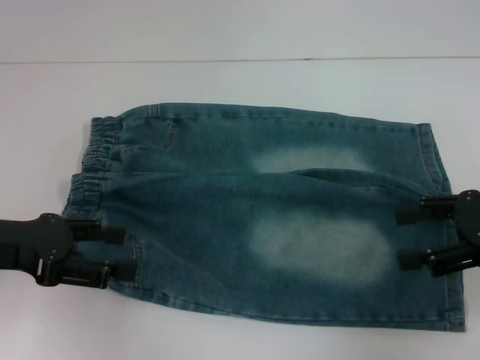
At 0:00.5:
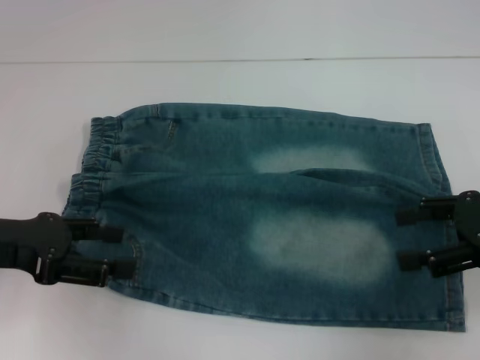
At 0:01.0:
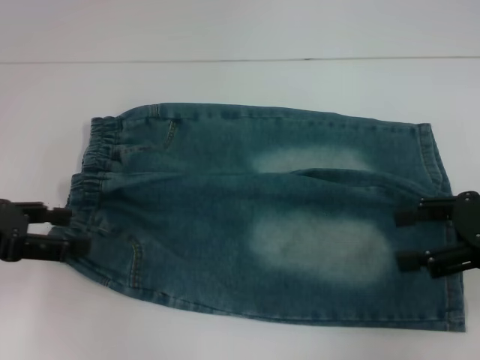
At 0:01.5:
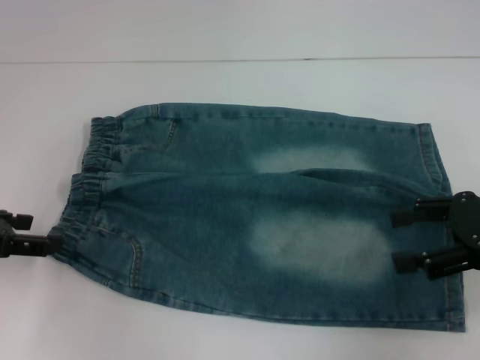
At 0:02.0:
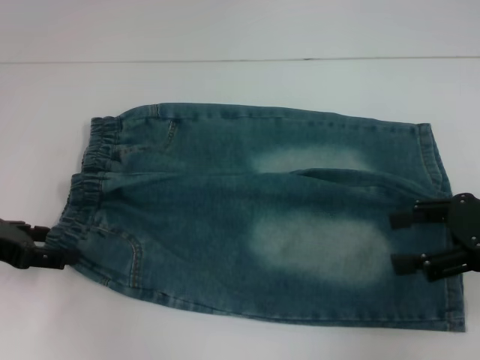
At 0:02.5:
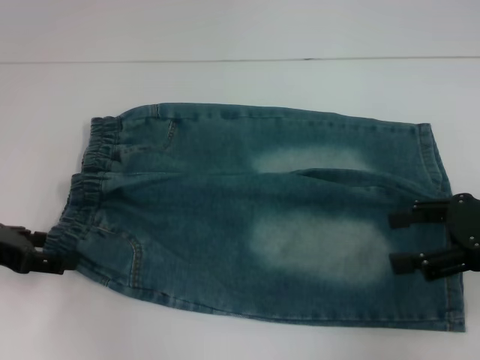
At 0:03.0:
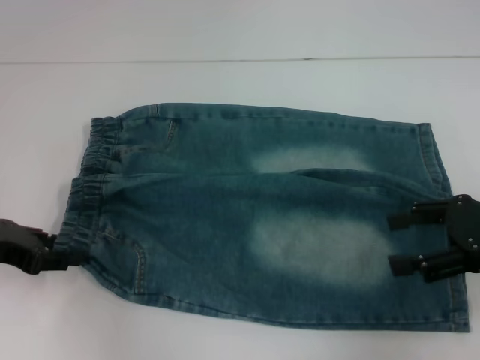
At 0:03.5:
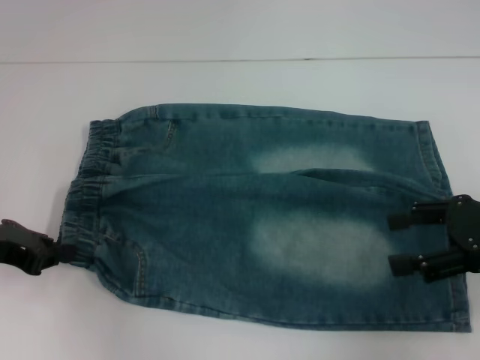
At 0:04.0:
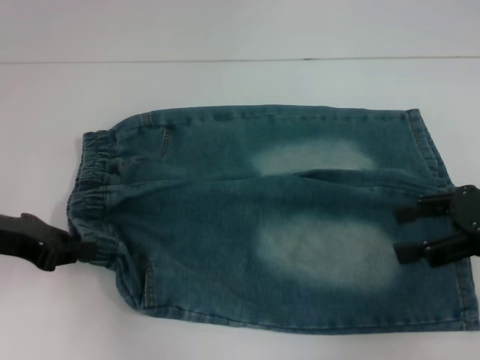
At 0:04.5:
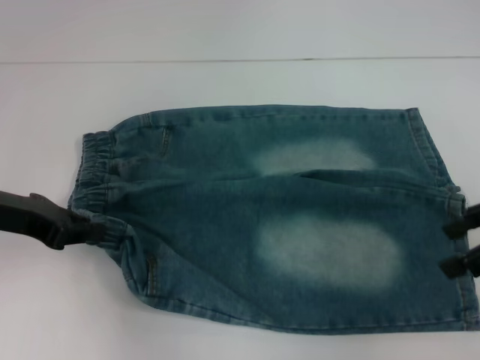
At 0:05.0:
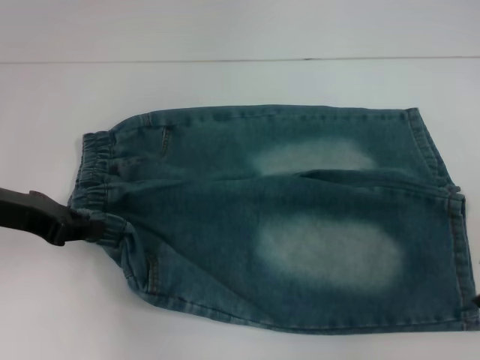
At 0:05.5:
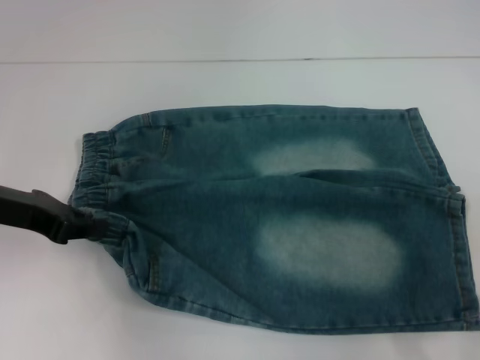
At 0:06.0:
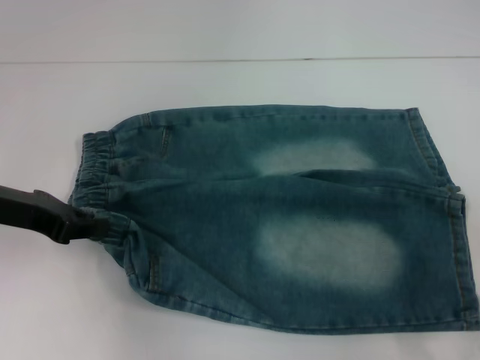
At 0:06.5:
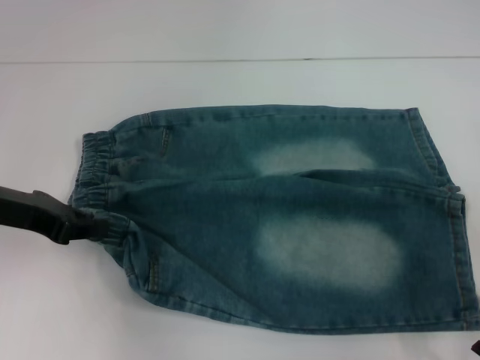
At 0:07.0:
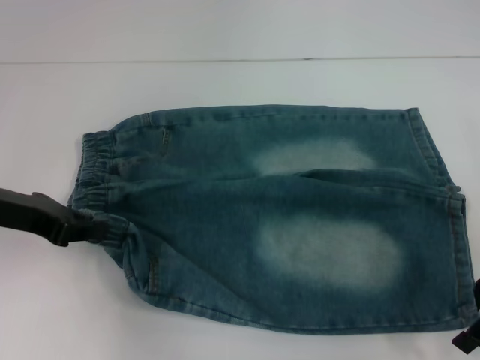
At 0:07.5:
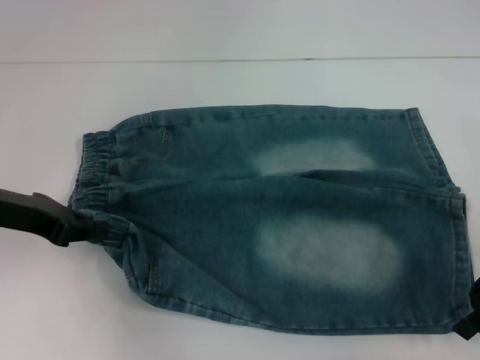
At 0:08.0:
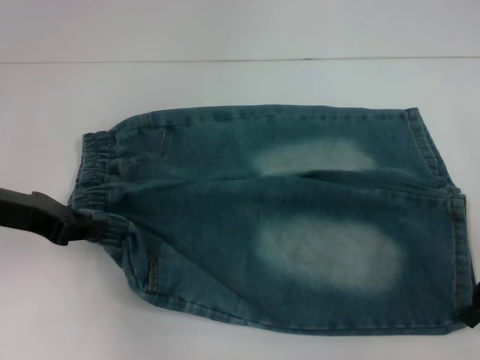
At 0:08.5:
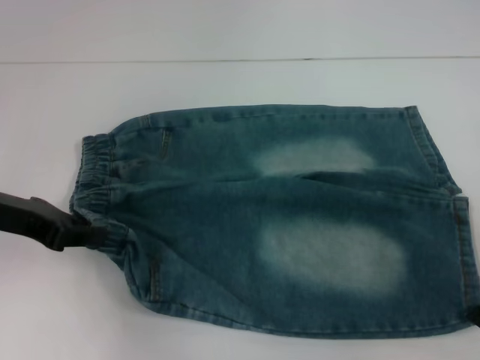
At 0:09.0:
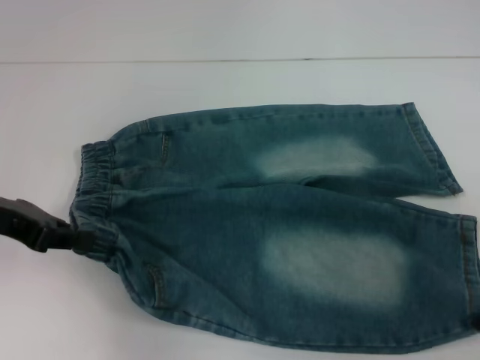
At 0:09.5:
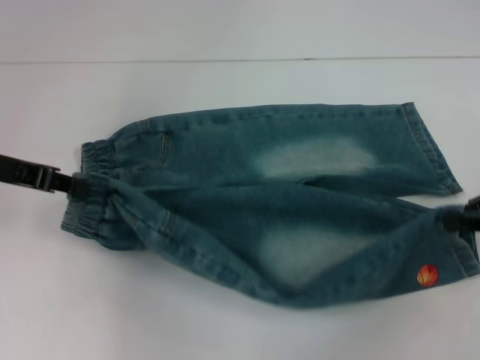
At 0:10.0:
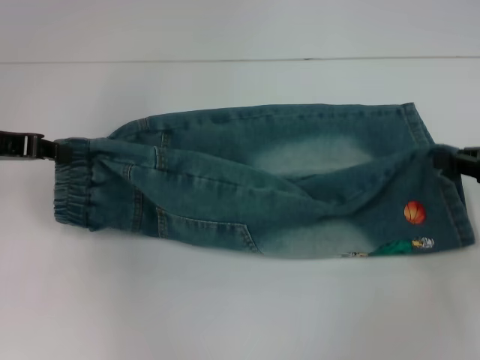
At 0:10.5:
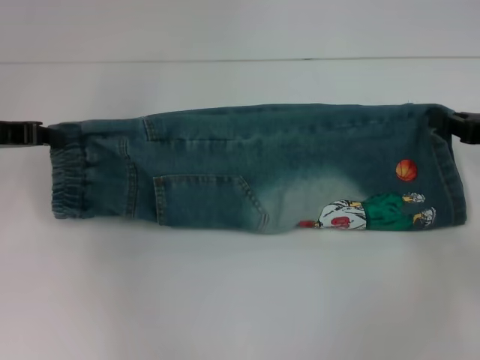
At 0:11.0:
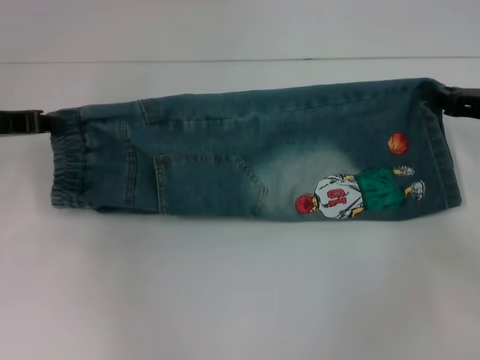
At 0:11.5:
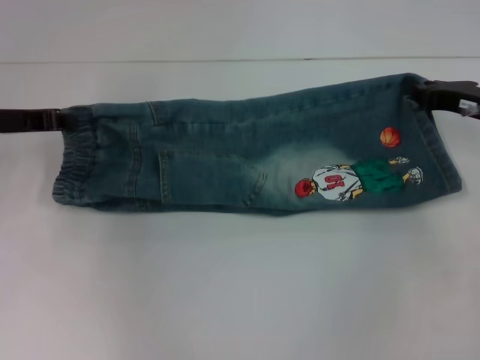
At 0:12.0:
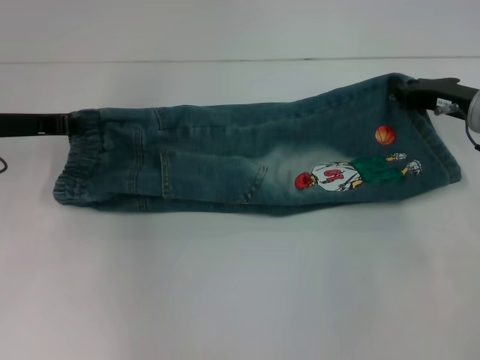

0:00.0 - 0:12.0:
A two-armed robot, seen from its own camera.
Step, 0:00.0 - 0:03.5: Hold the lower left waistband with your left hand.
Step, 0:04.0 - 0:08.0: Grab the lower right pant leg with your right hand.
0:00.0 - 0:02.0: The left gripper ends up about 5 cm from where it was.
0:02.0 - 0:04.0: The left gripper closes.
0:06.0 - 0:08.0: The right gripper closes.
0:08.0 - 0:10.0: The left gripper ends up about 5 cm from where it was. The right gripper heads to the right, covering approximately 5 cm.
0:10.0 - 0:12.0: The right gripper goes about 10 cm forward and to the left, while the left gripper ends up roughly 5 cm from where it was.

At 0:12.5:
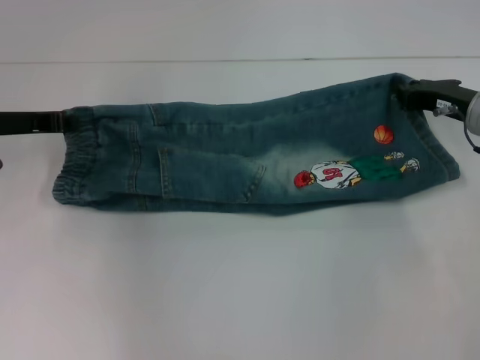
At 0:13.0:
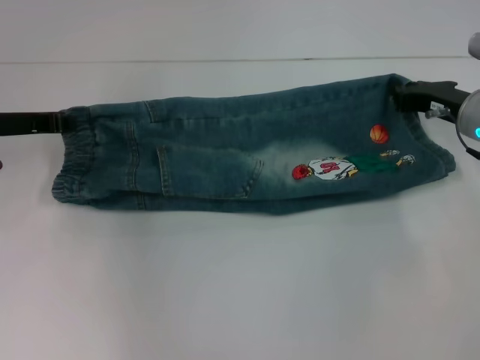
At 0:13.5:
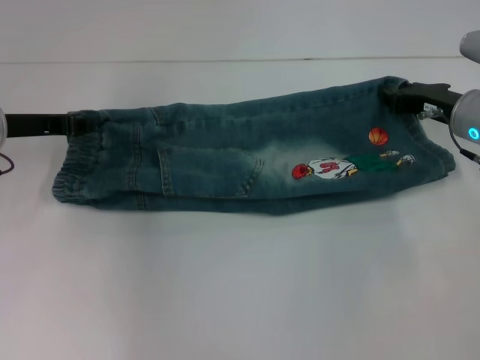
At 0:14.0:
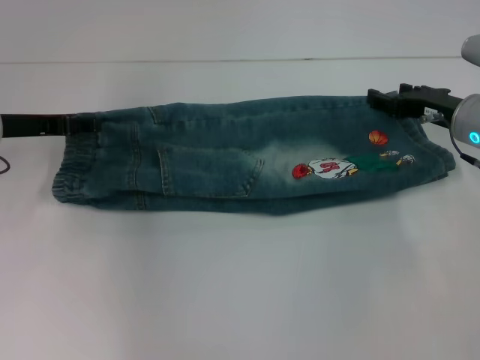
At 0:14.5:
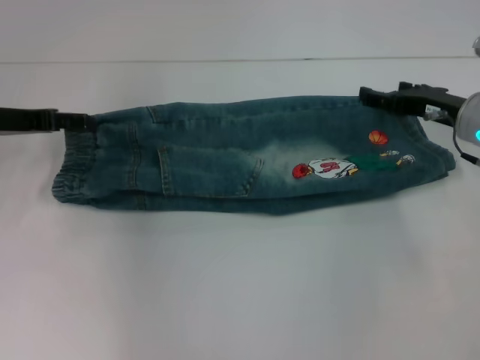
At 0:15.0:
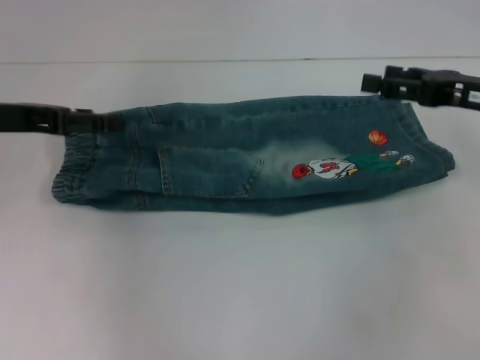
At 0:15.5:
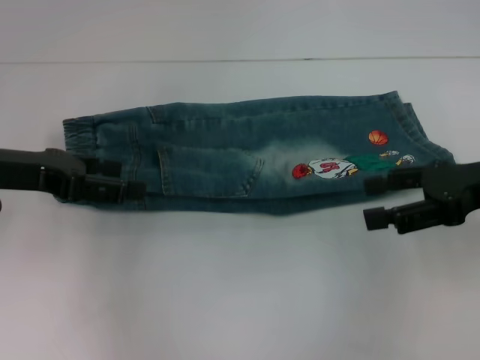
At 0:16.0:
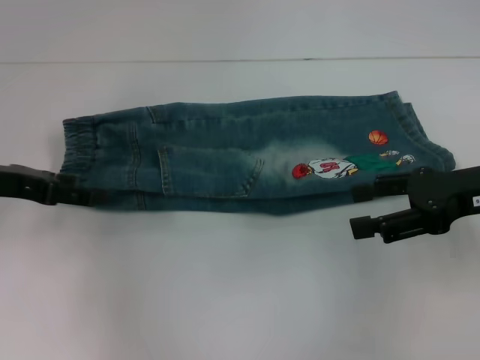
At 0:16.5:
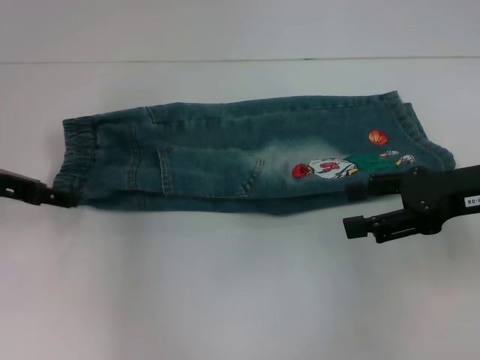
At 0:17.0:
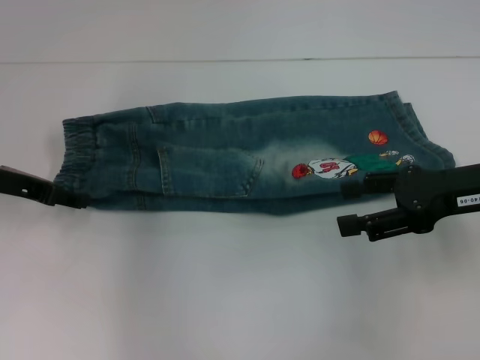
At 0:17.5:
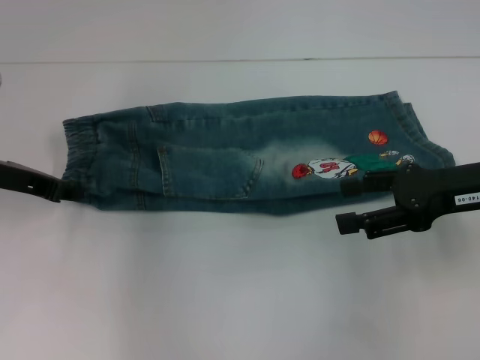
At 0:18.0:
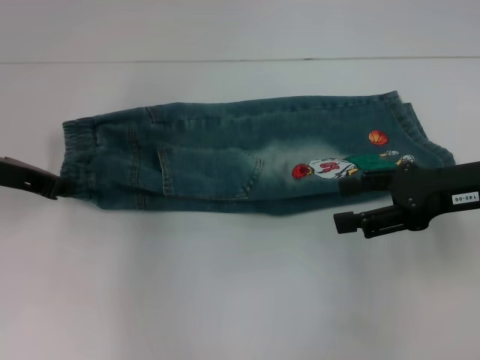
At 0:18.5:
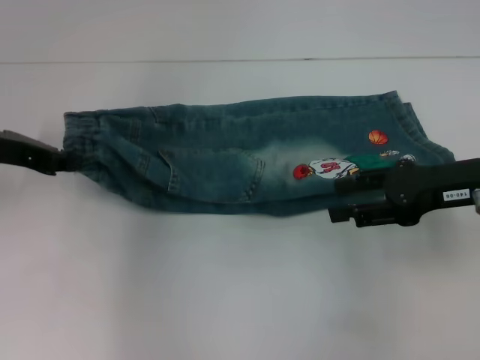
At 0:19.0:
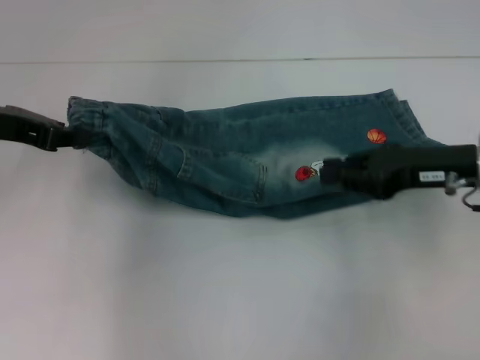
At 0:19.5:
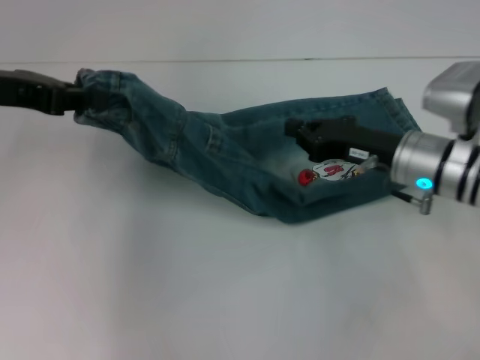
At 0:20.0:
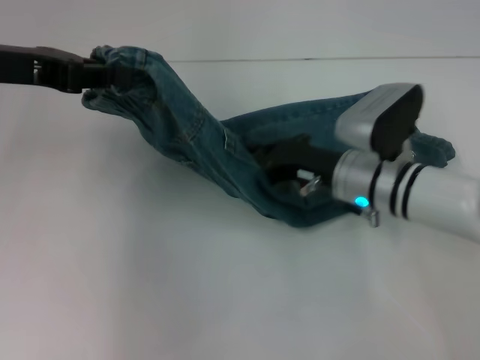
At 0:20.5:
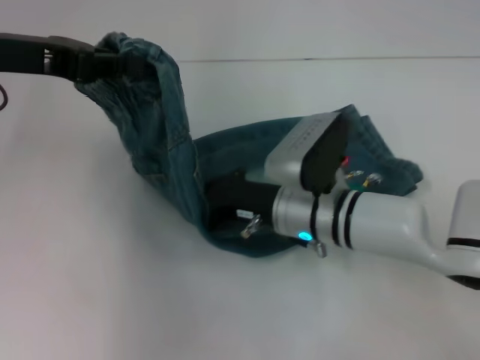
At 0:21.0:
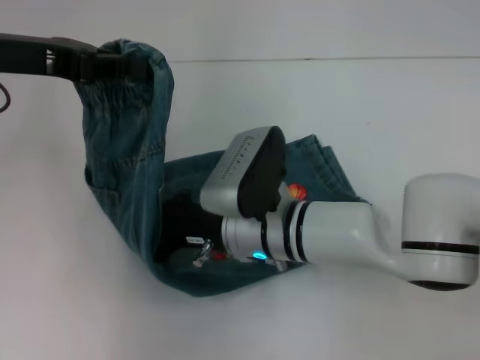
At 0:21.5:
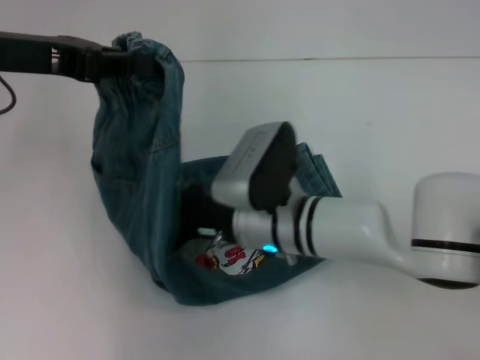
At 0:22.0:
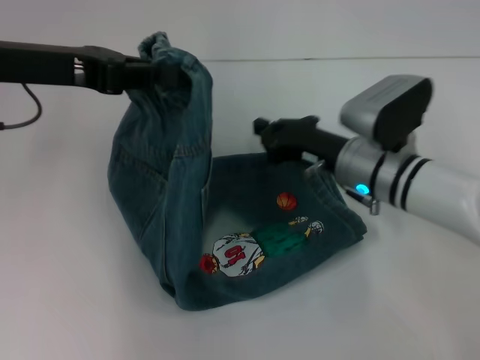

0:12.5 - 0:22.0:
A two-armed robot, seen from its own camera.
Step, 0:14.5 - 0:17.5: Hold the waistband with your left hand.
Step, 0:18.0 - 0:21.0: Press the middle of the pants with your right hand.
0:12.5 - 0:14.5: The right gripper opens its fingers, while the left gripper opens its fingers.
0:14.5 - 0:16.5: The right gripper goes approximately 10 cm backward and upward.
0:16.5 - 0:18.0: The left gripper closes its fingers.
0:18.0 - 0:20.0: The right gripper moves to the left and downward, some 15 cm, and closes its fingers. Meanwhile the left gripper goes roughly 10 cm upward.
0:20.0 - 0:22.0: The right gripper goes to the left and returns, approximately 10 cm each way.

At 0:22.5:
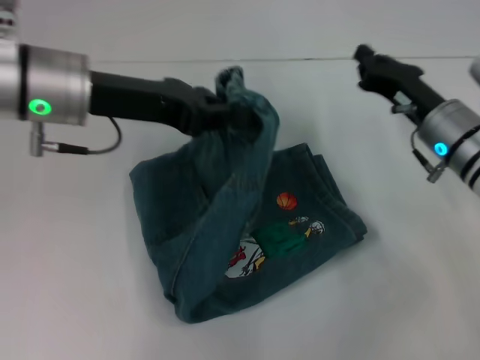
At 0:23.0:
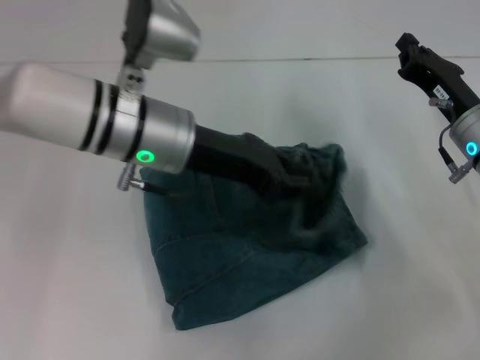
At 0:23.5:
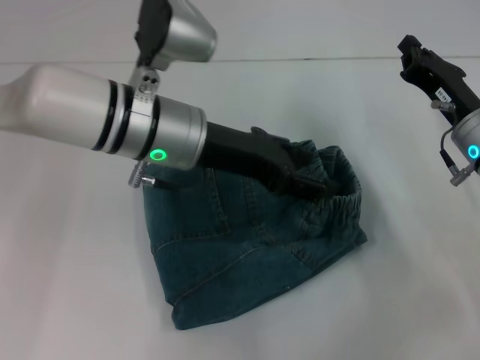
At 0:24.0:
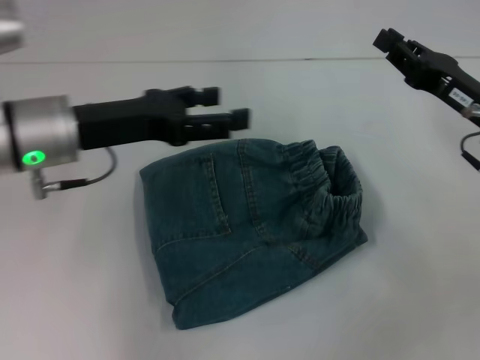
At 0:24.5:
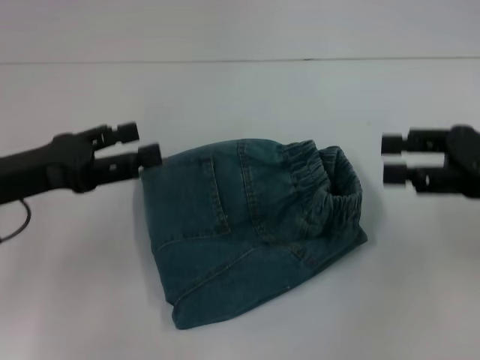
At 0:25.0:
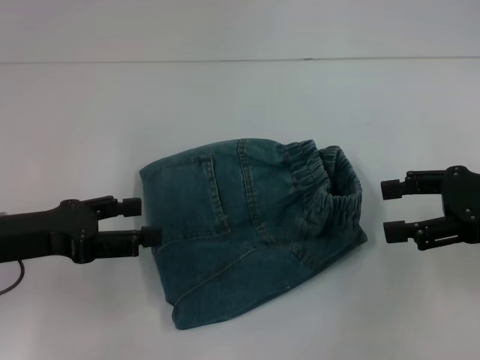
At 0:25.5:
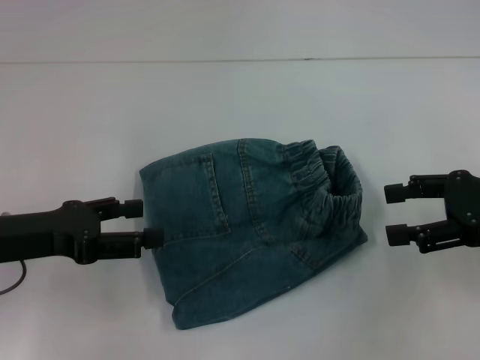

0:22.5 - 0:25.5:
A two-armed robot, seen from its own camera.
0:22.5 - 0:24.0: The left gripper reaches about 10 cm to the right, then returns, and opens its fingers, while the right gripper changes place by roughly 5 cm.
0:24.0 - 0:25.5: The right gripper ends up about 10 cm from where it was, and opens its fingers; the left gripper travels to the left and backward by roughly 10 cm.

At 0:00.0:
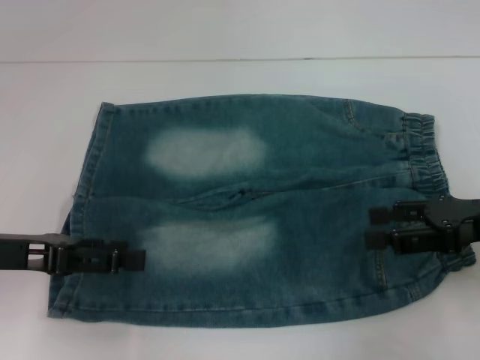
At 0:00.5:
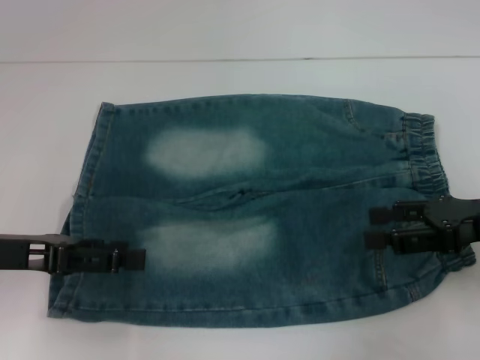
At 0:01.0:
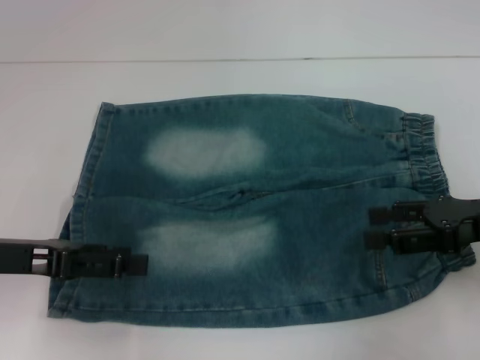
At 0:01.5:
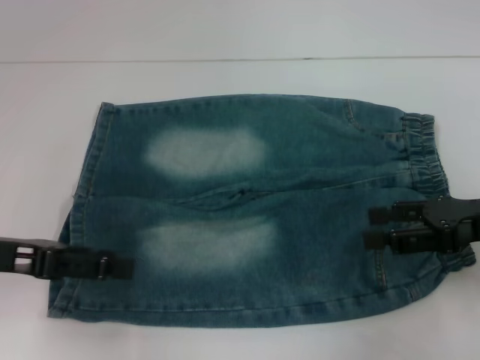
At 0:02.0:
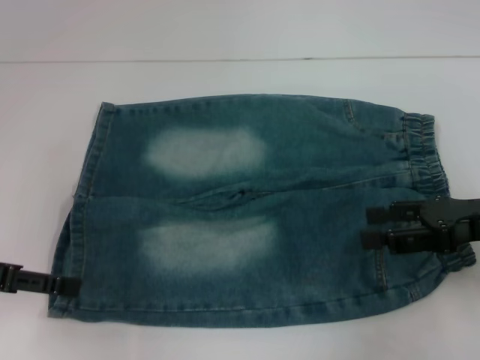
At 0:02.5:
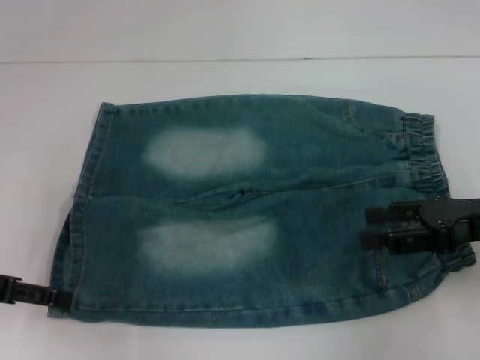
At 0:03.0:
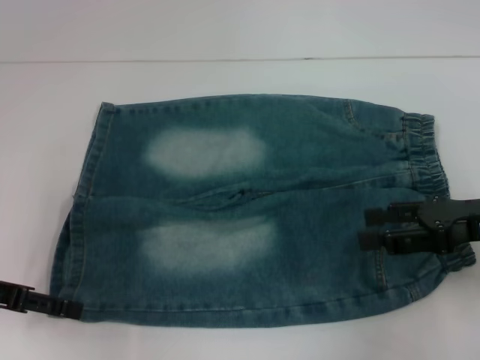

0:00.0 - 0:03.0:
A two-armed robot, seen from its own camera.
0:00.0 - 0:01.5: Both grippers stay put.
